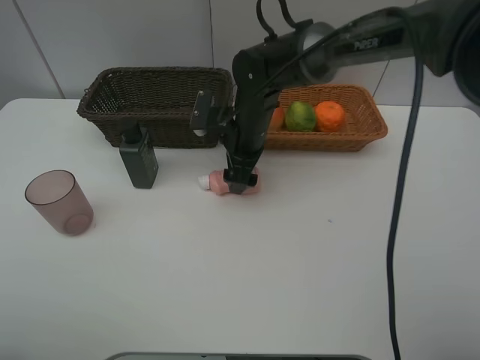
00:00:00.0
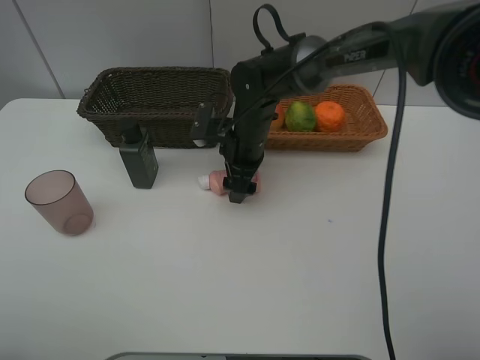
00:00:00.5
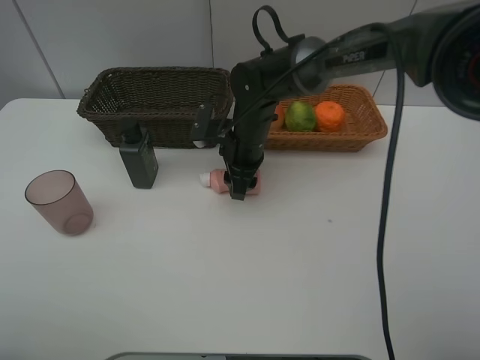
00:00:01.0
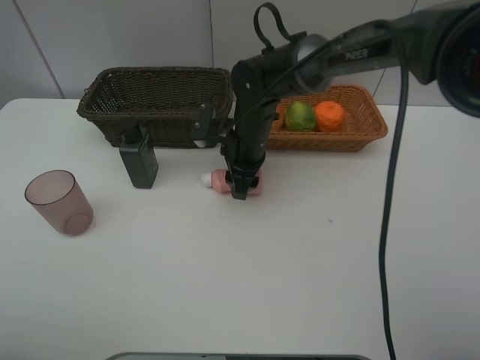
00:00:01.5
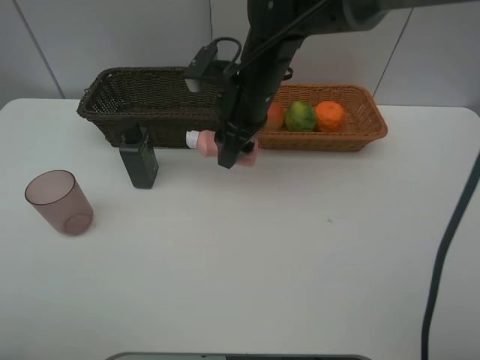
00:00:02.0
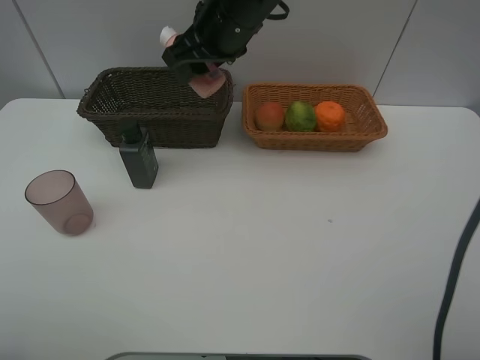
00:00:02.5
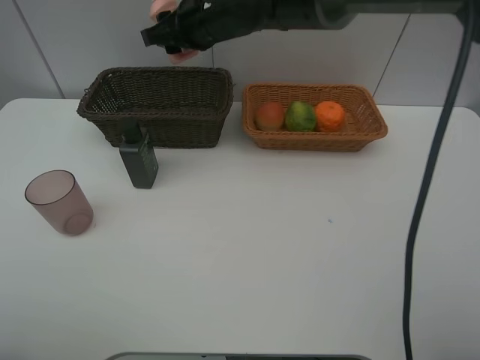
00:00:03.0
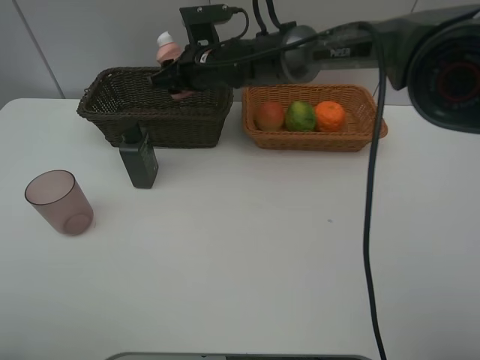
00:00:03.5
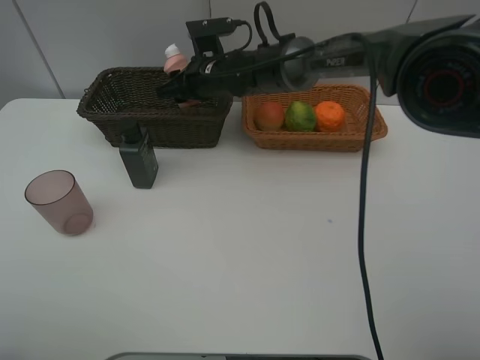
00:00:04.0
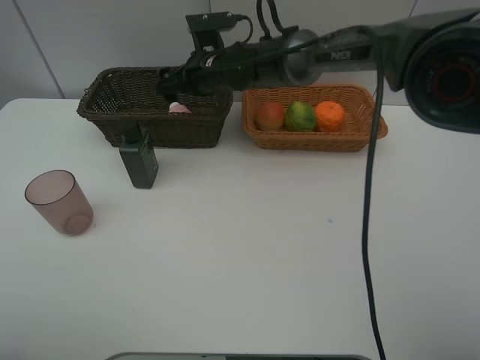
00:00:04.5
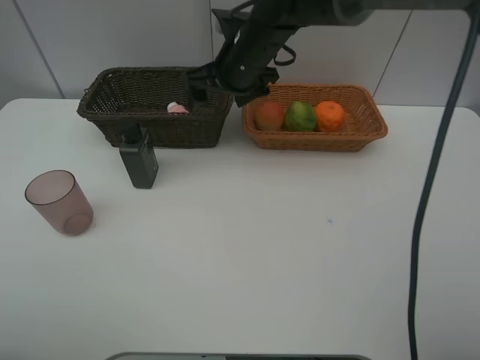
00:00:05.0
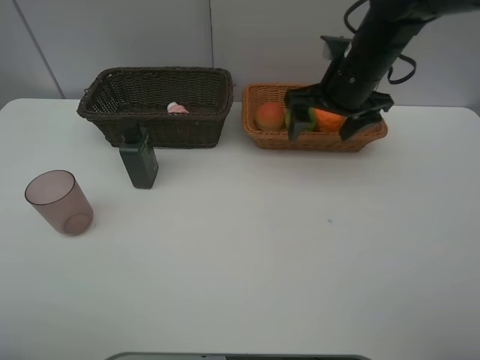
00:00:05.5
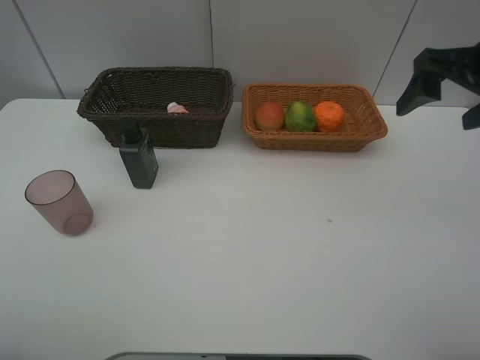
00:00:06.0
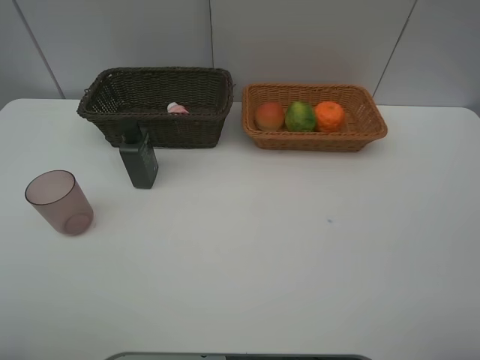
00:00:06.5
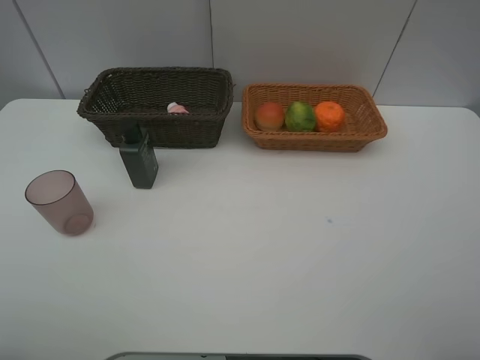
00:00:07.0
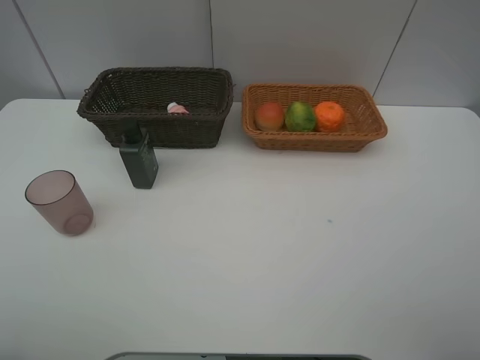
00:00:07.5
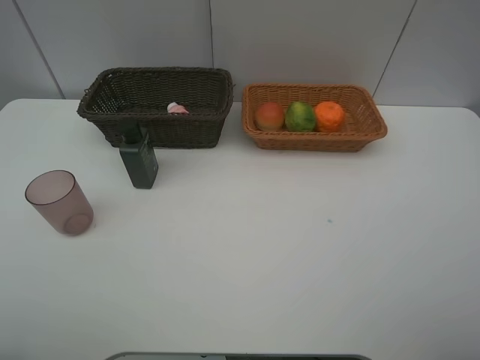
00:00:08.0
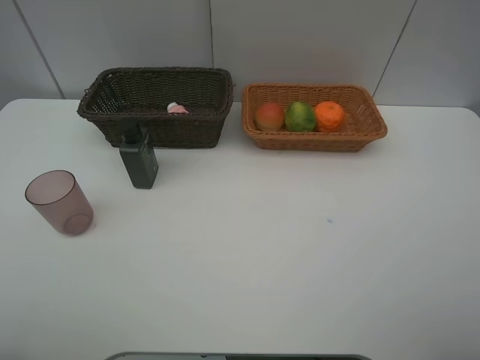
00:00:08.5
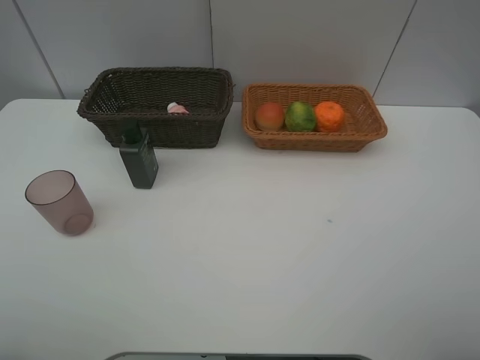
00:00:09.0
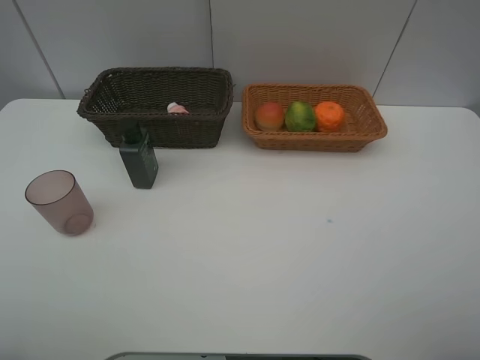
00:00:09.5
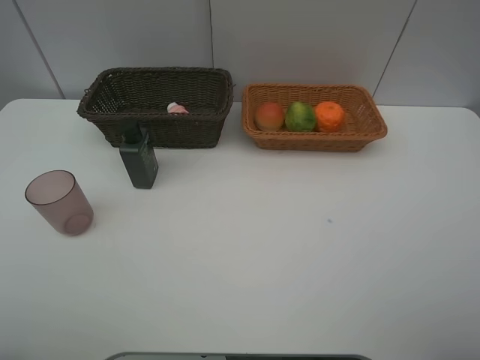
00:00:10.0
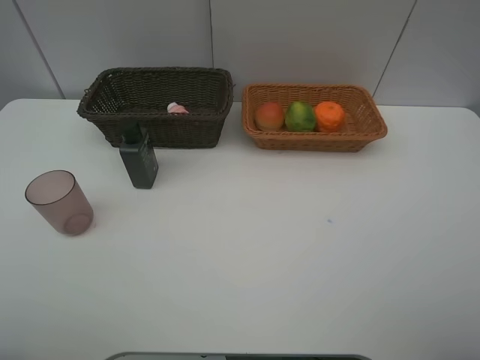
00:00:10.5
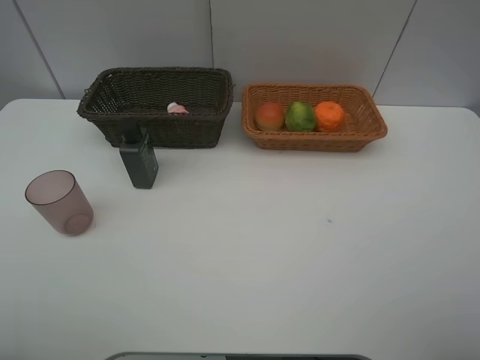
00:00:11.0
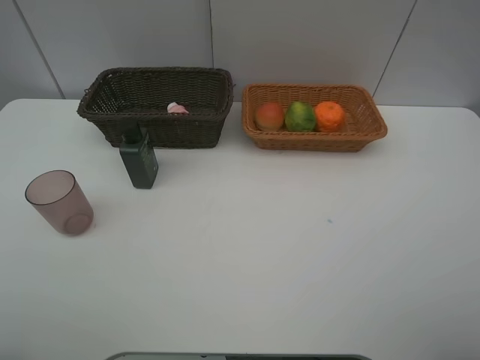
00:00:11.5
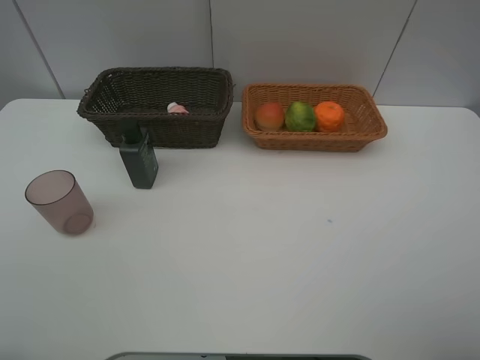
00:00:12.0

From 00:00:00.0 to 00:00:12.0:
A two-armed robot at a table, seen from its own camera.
Task of the whole recording: place multiple objects separately in different baskets.
From 00:00:00.0 to 00:00:02.0: The right gripper goes about 10 cm upward, and closes up.
From 00:00:02.0 to 00:00:04.0: The right gripper heads forward, downward and to the left, covering some 10 cm.
From 00:00:04.0 to 00:00:06.0: The right gripper shifts roughly 40 cm to the right, backward and upward, and opens.
From 00:00:06.0 to 00:00:08.0: The right gripper heads backward, covering approximately 25 cm.

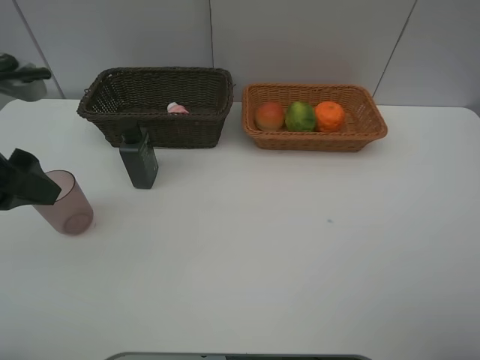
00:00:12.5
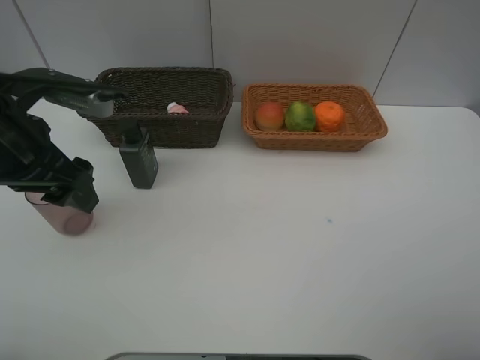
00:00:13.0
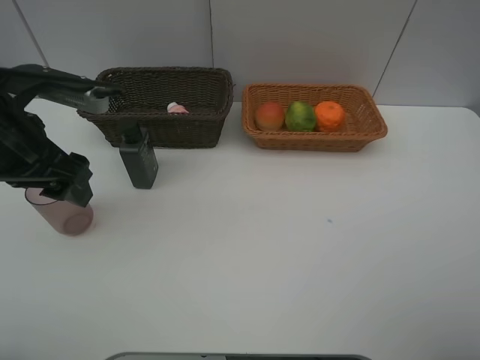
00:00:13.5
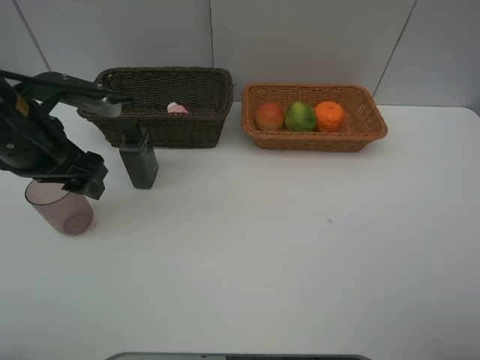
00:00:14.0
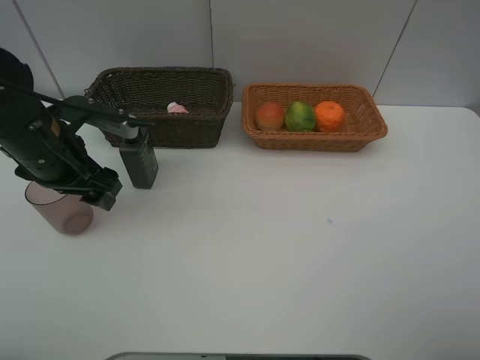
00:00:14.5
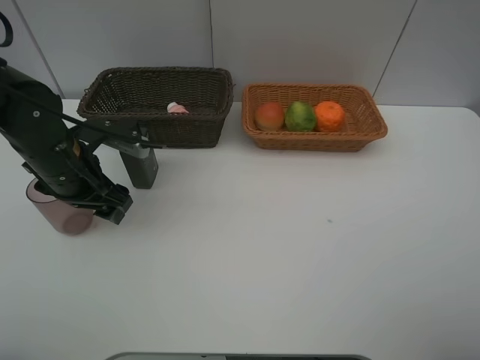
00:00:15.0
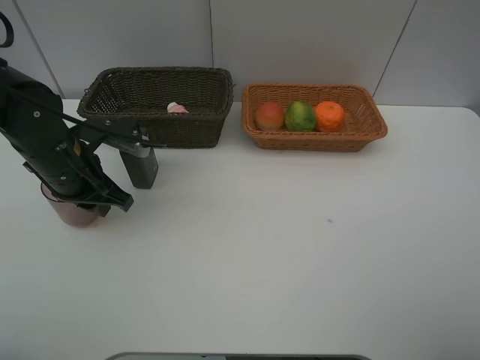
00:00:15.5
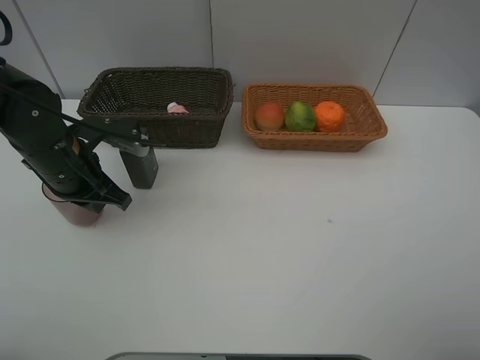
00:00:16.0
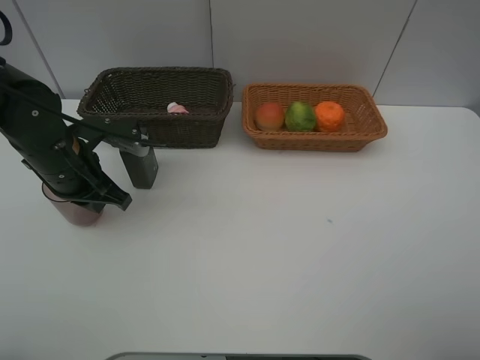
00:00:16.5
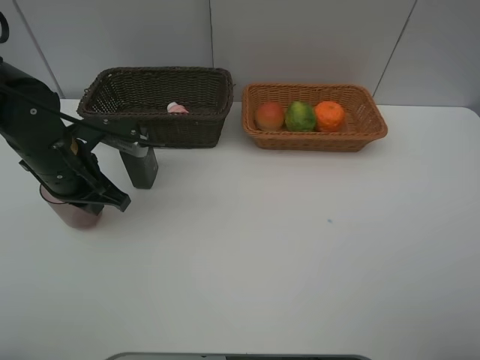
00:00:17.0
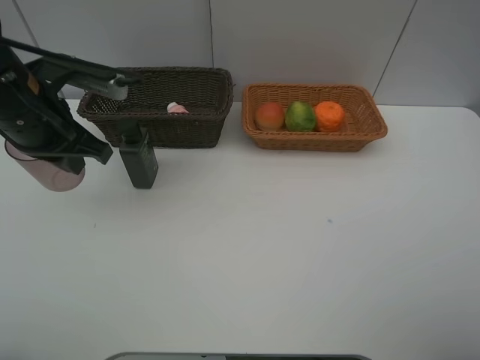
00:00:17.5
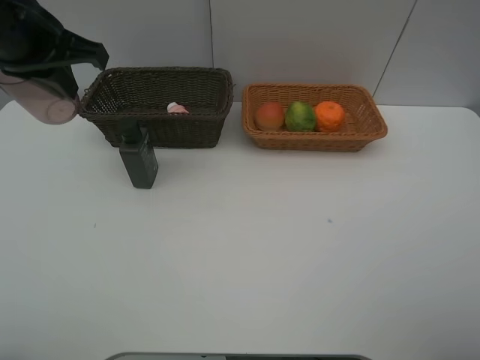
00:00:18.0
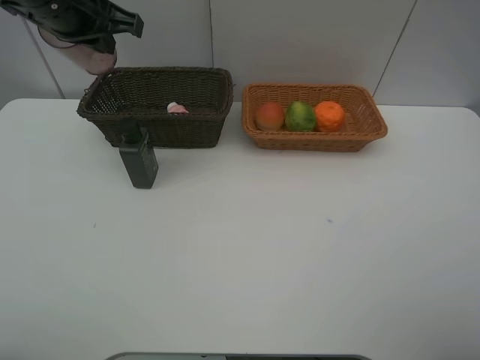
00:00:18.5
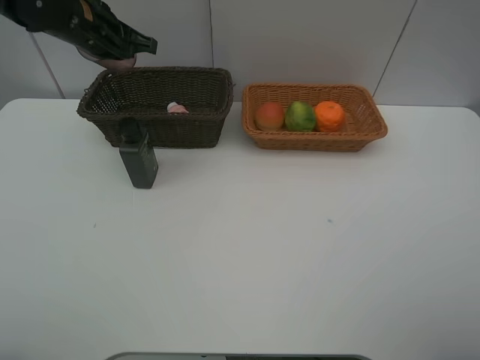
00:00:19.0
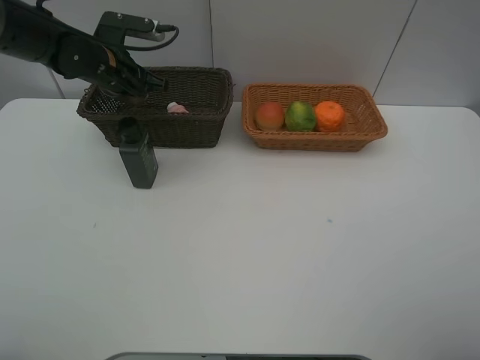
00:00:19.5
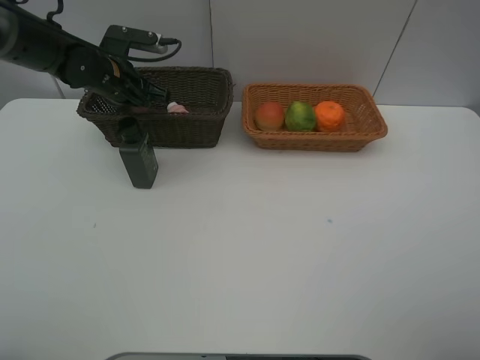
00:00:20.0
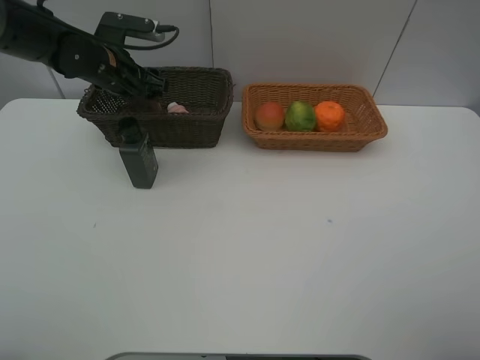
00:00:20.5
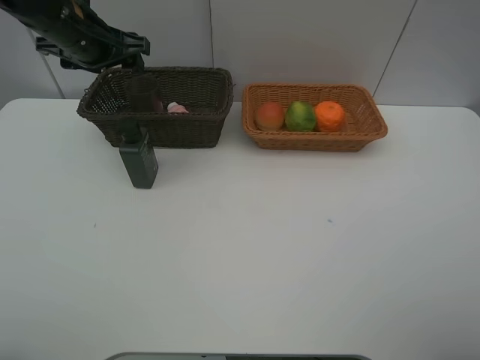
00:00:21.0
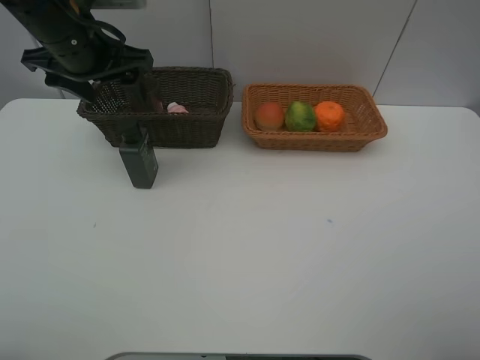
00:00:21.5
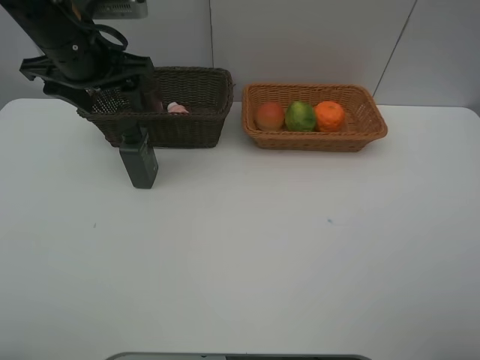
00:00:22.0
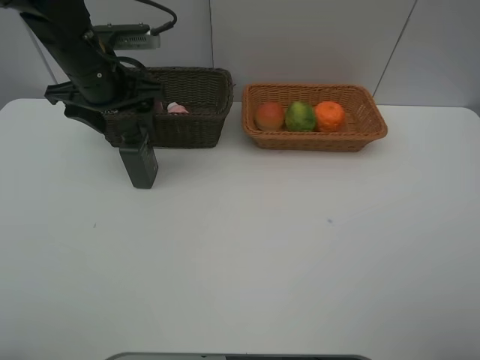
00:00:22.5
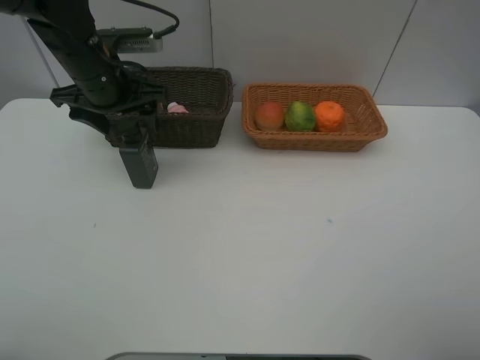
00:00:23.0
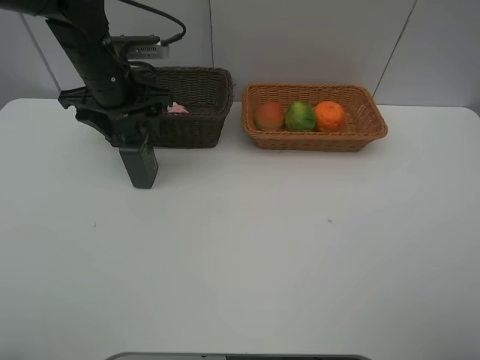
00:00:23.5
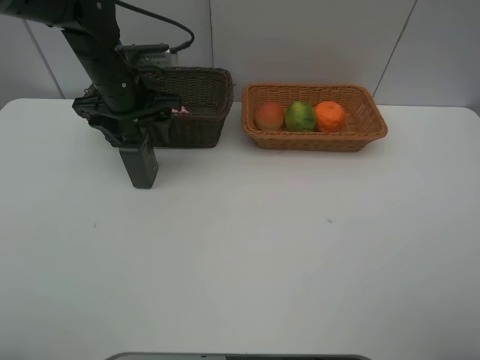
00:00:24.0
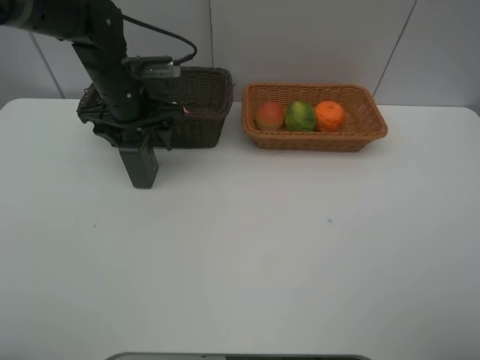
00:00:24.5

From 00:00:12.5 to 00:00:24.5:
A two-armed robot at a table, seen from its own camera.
Task of the whole recording: place multiple objects separately in different baskets.
Step, from 00:00:12.5 to 00:00:17.0: Pick up the brown cup with left gripper.
Step, from 00:00:17.5 to 00:00:20.5: Place the brown cup in the dark basket with left gripper.
From 00:00:12.5 to 00:00:14.5: The left gripper travels downward and forward by approximately 15 cm.
From 00:00:14.5 to 00:00:16.5: The left gripper closes up.
From 00:00:16.5 to 00:00:18.5: The left gripper is displaced upward and forward by about 20 cm.
From 00:00:18.5 to 00:00:20.5: The left gripper heads downward and forward, covering some 15 cm, and opens.
From 00:00:20.5 to 00:00:22.5: The left gripper travels backward by roughly 5 cm.
From 00:00:22.5 to 00:00:24.5: The left gripper goes approximately 5 cm downward.

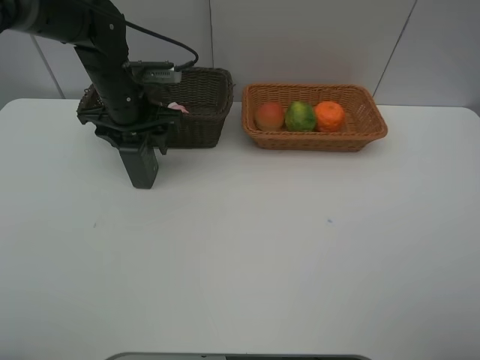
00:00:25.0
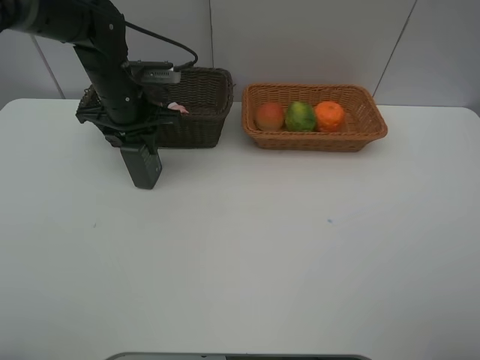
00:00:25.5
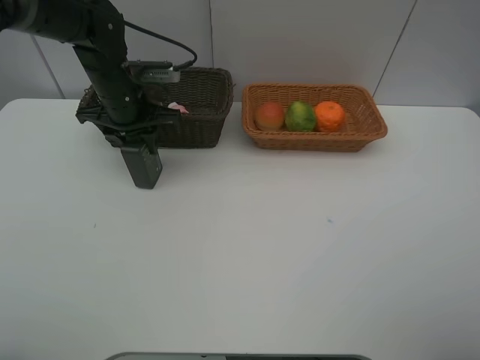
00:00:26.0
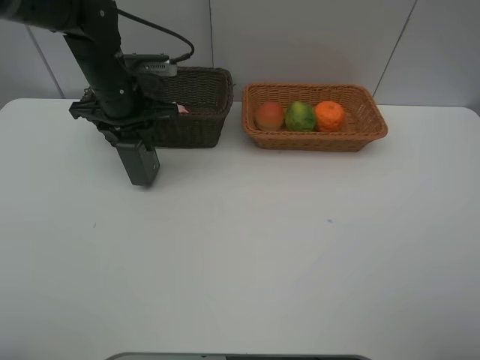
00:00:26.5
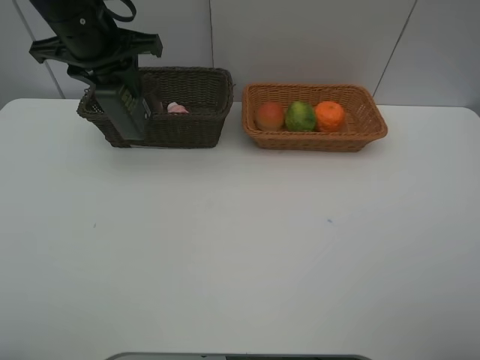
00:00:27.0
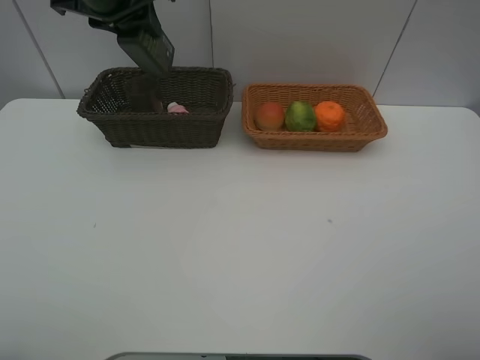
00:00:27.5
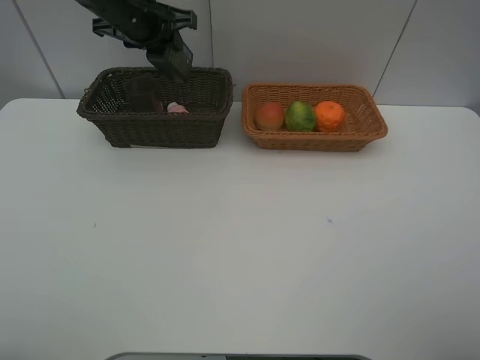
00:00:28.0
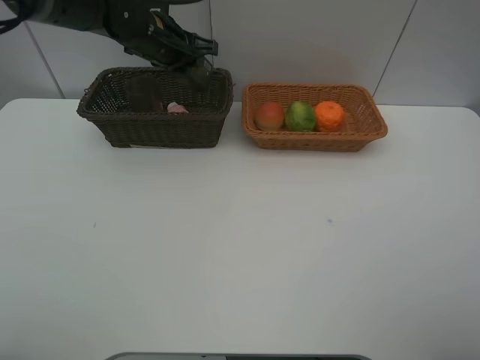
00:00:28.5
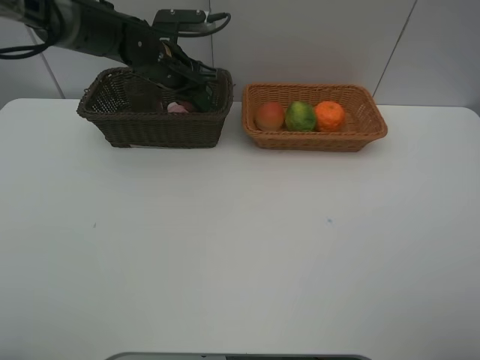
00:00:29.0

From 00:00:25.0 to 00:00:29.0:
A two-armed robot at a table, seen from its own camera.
Task of the whole recording: place multiple objects separately in different baskets.
From 00:00:25.0 to 00:00:27.0: The left gripper moves upward, roughly 10 cm.
From 00:00:27.0 to 00:00:29.0: The left gripper moves downward, forward and to the right, roughly 15 cm.
